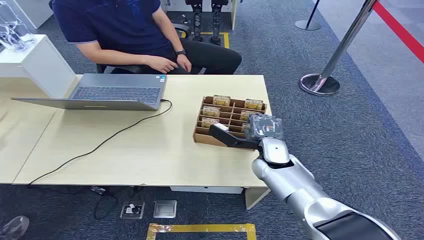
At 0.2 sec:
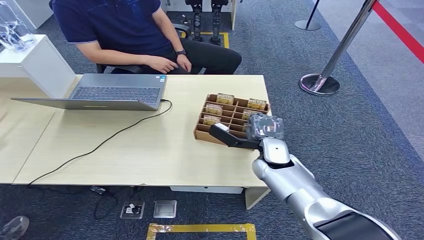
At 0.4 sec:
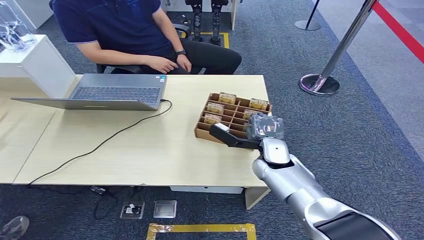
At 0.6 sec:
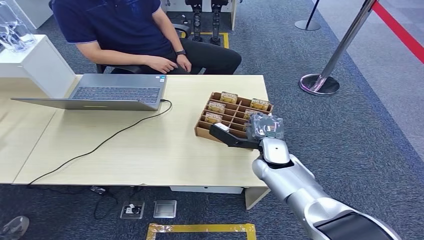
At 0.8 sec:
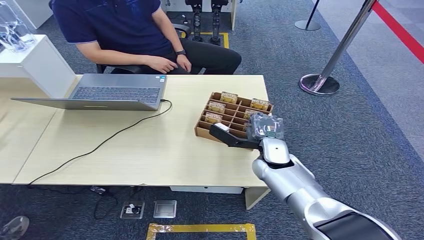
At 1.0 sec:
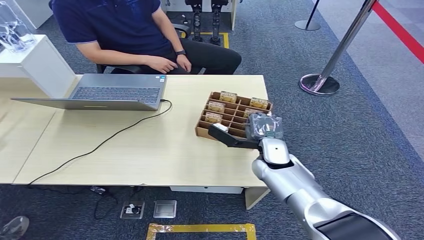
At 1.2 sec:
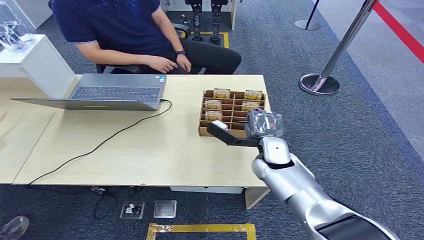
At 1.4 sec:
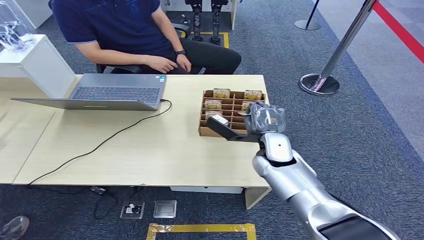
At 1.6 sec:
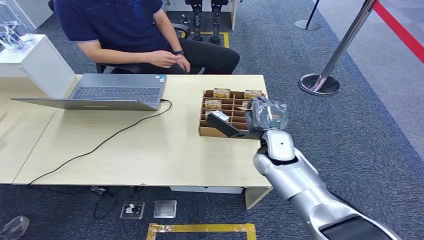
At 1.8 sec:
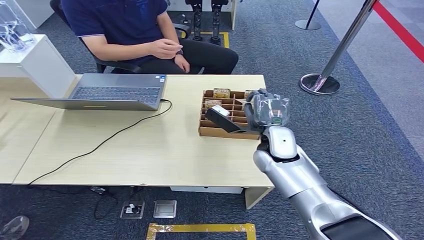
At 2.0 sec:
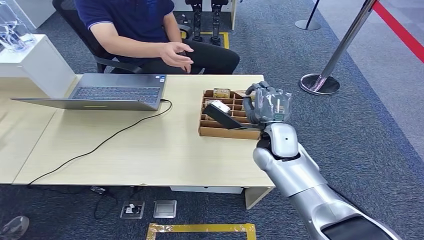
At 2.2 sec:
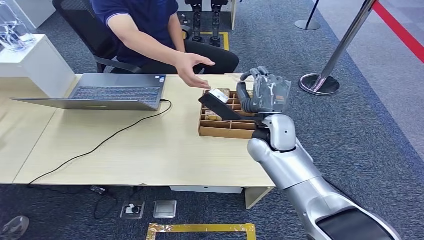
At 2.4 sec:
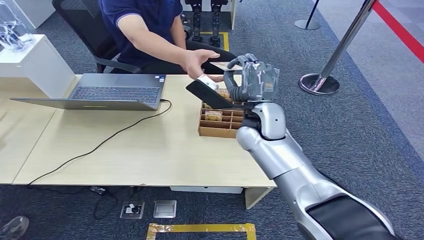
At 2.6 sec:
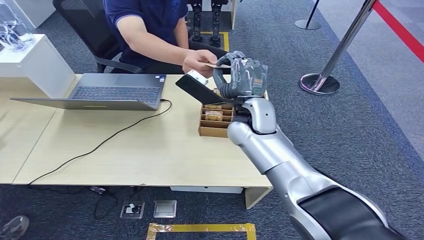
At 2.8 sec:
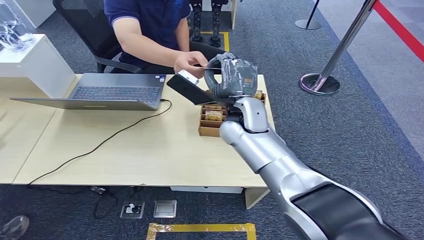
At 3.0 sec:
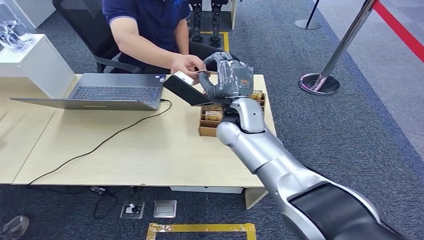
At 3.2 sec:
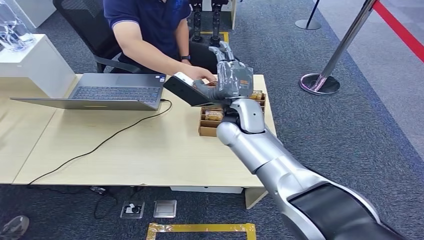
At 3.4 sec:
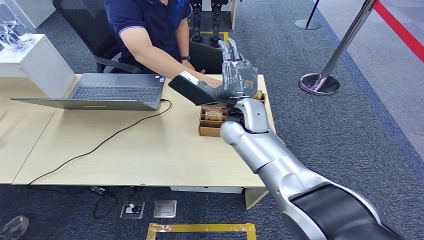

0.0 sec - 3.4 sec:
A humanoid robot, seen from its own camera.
Step, 0.0 sec - 1.6 sec: Pick up the room card from the card holder.
Step, 1.8 sec - 3.4 sec: Hand the room card to the target.
1.6 sec - 3.4 sec: The right hand travels upward and to the left by about 10 cm.
